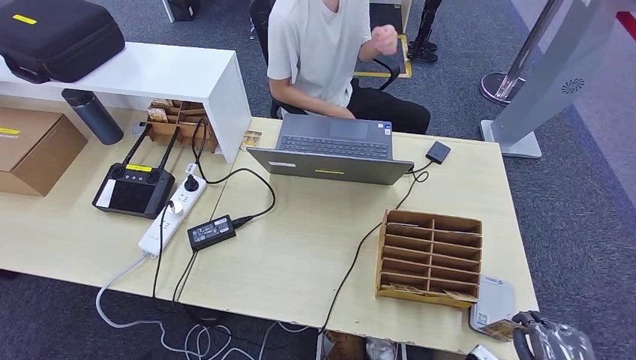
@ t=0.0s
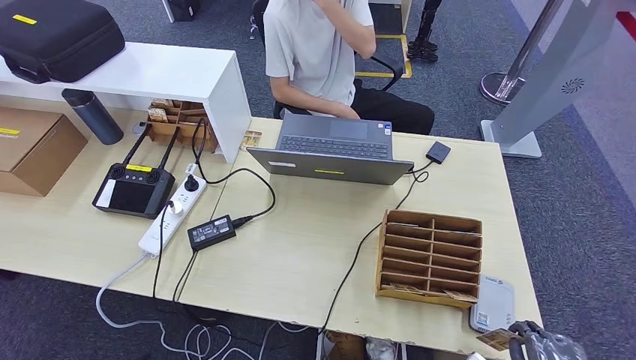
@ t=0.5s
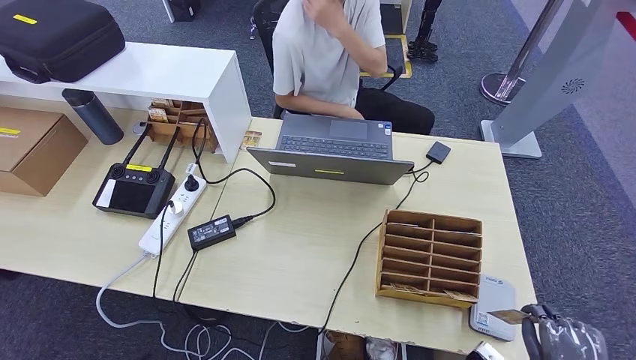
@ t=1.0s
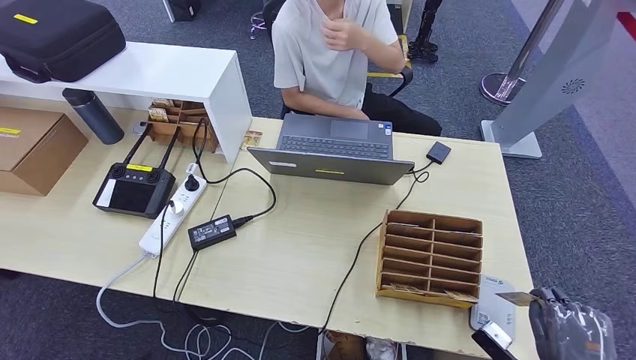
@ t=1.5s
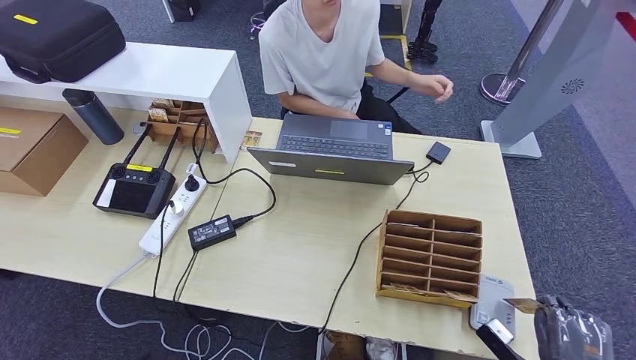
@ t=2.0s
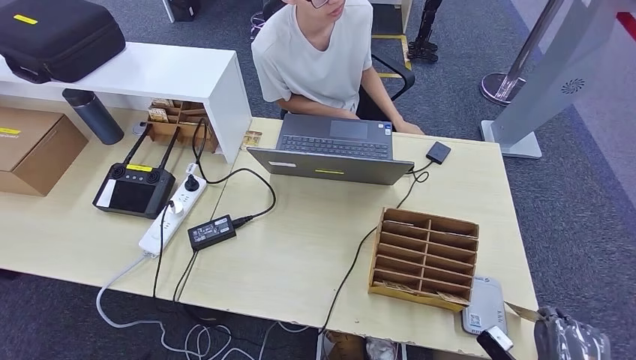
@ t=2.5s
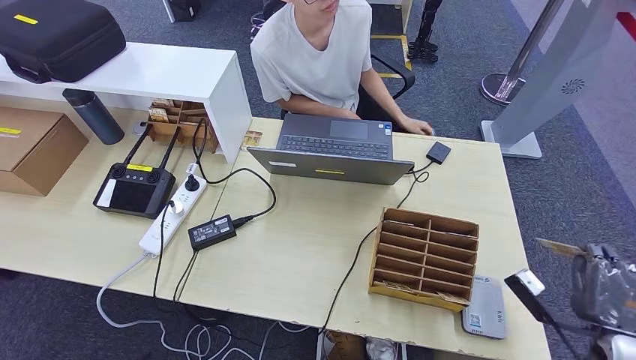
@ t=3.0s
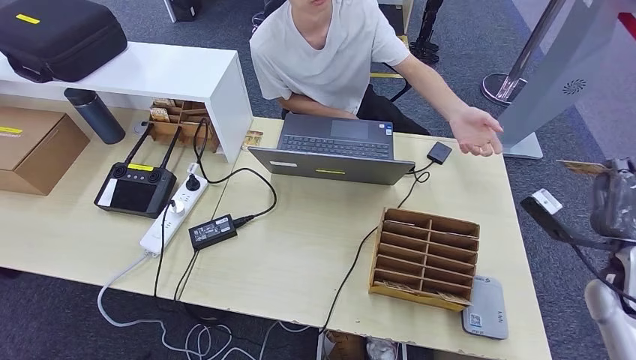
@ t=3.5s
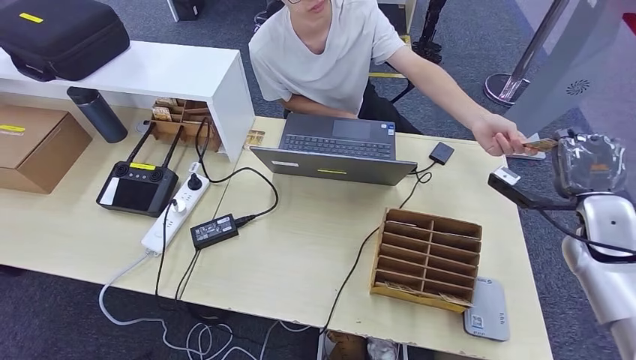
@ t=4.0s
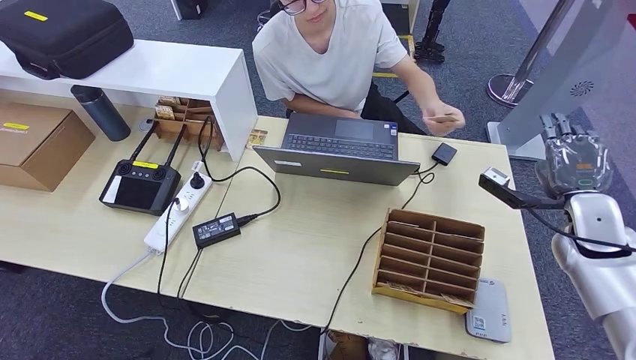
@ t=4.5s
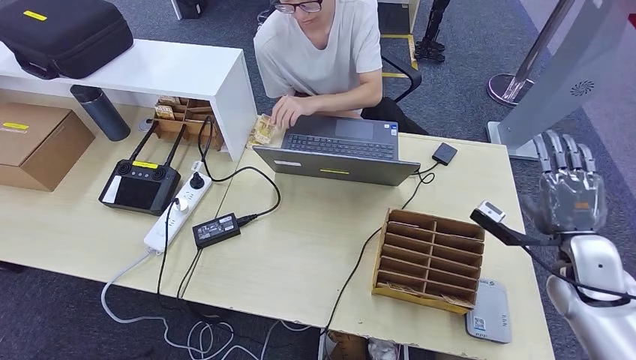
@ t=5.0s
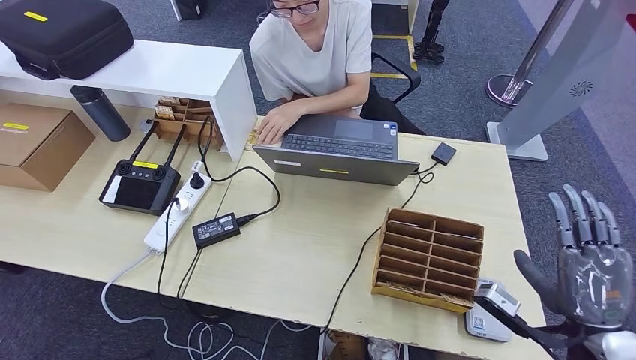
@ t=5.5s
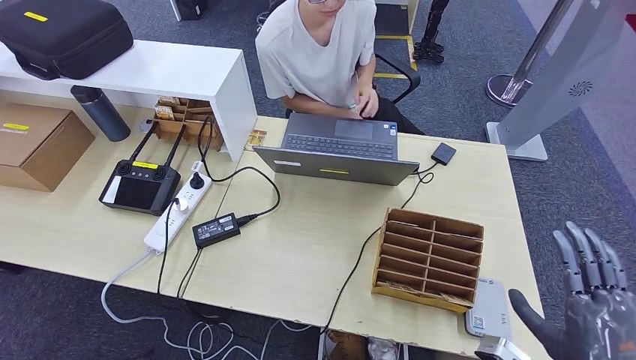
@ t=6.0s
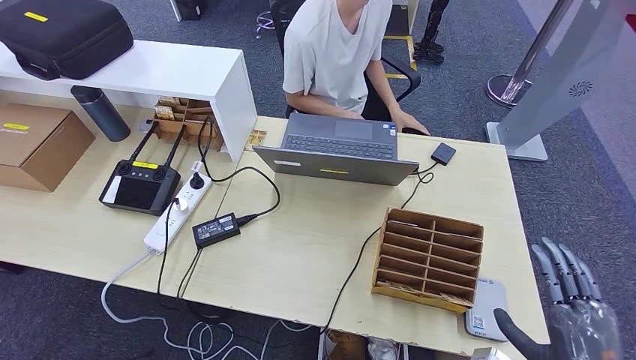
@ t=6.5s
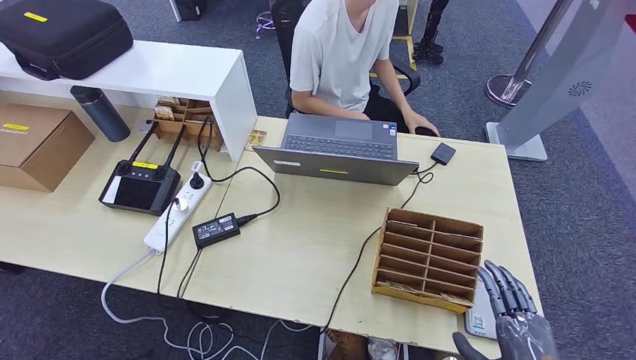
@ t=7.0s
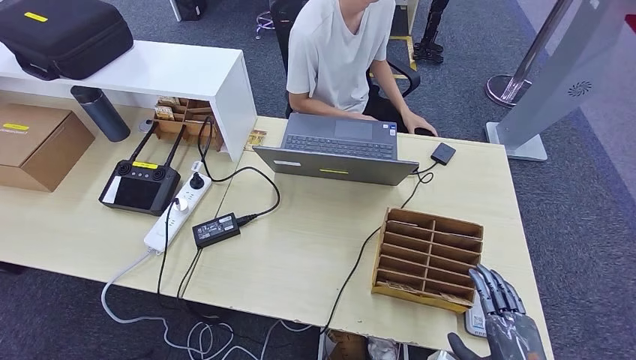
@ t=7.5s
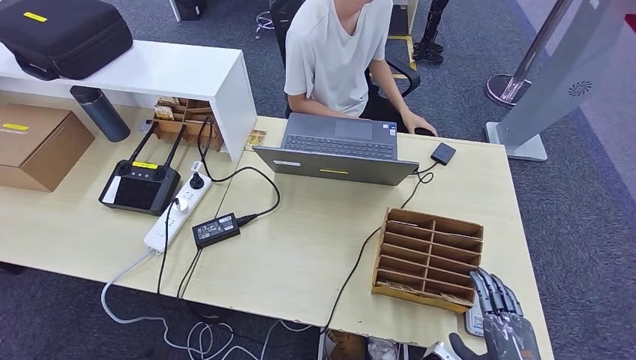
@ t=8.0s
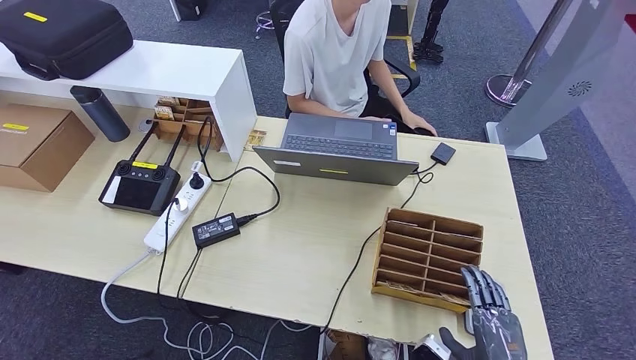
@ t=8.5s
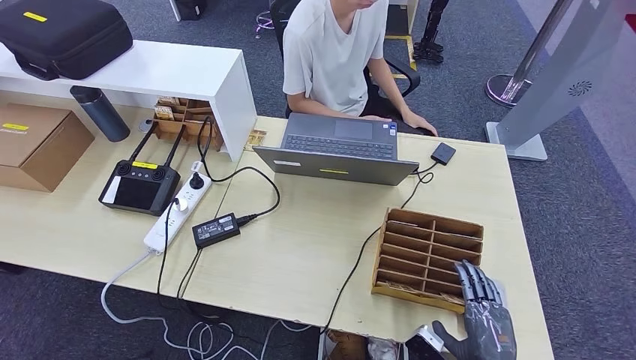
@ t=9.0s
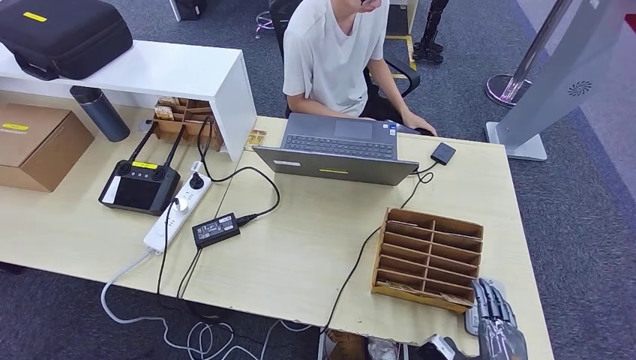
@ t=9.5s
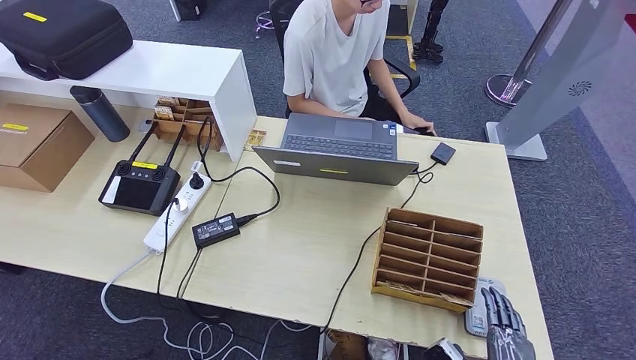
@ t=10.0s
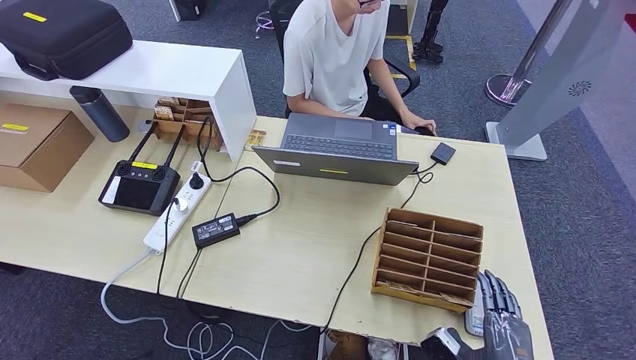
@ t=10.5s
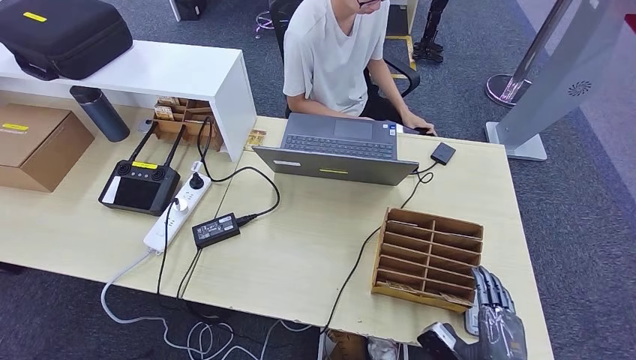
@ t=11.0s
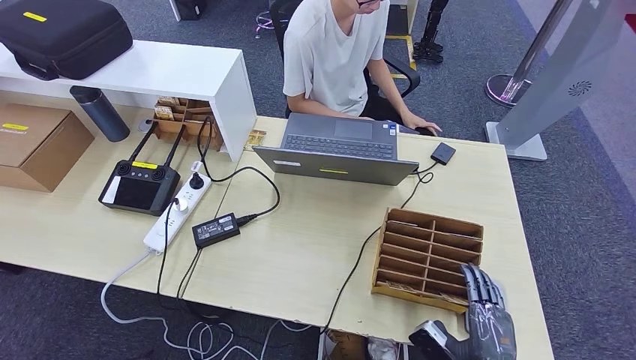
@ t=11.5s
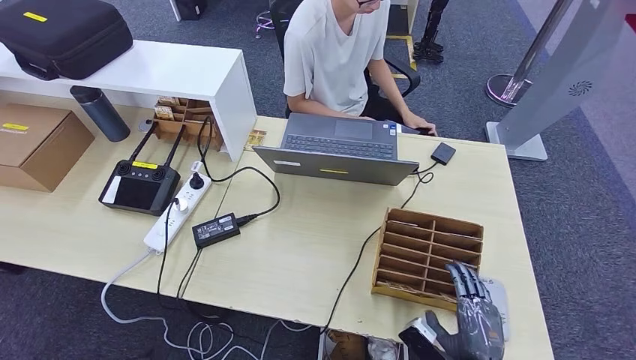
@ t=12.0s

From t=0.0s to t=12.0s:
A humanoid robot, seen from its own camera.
Step, from t=0.0s to t=2.5s: Place the ID card on the card reader.
Step, from t=3.5s to t=6.0s: Hand the ID card to the person.
From t=0.0s to t=2.0s: The right hand changes place by about 5 cm.
From t=4.0s to t=6.0s: The right hand goes some 25 cm backward.
From t=6.0s to t=8.0s: The right hand moves downward, roughly 10 cm.
From t=8.0s to t=10.0s: The hands move only a little.
From t=10.0s to t=12.0s: The right hand ends up about 5 cm from where it was.

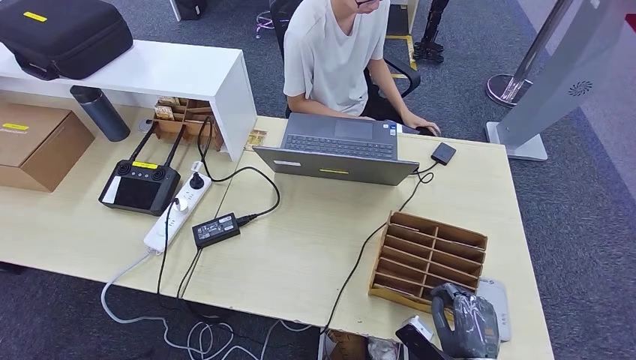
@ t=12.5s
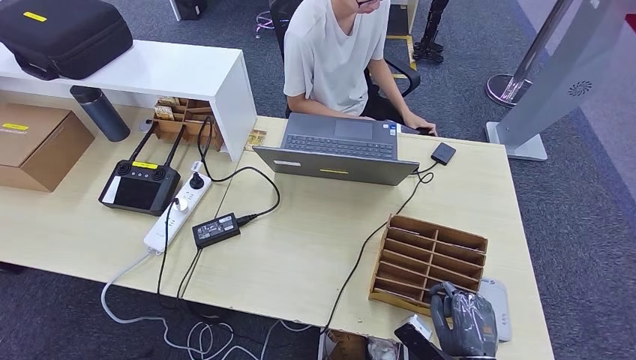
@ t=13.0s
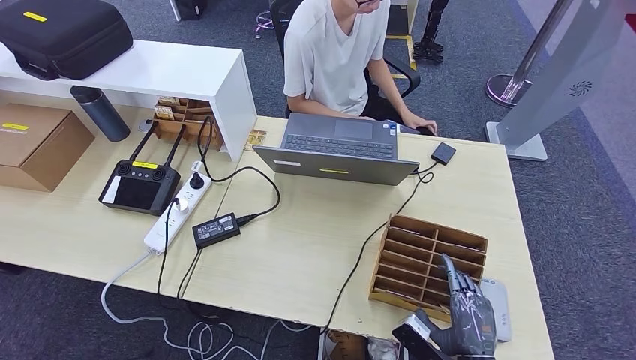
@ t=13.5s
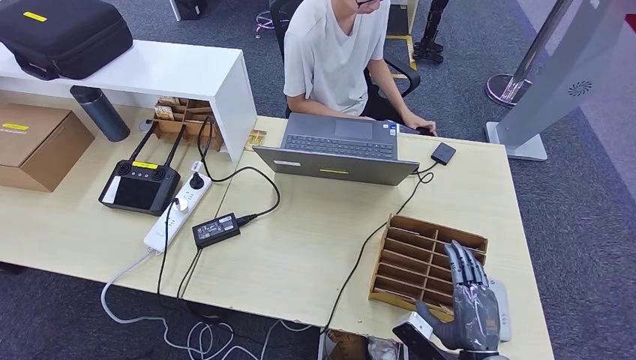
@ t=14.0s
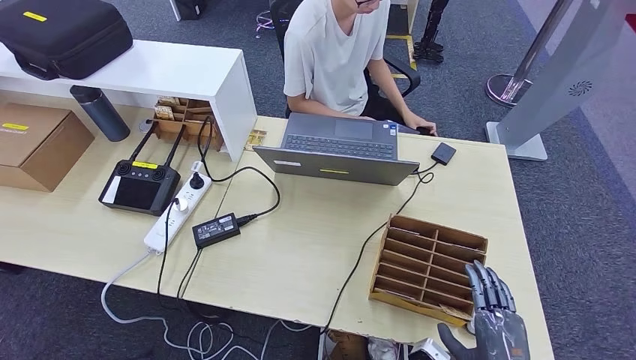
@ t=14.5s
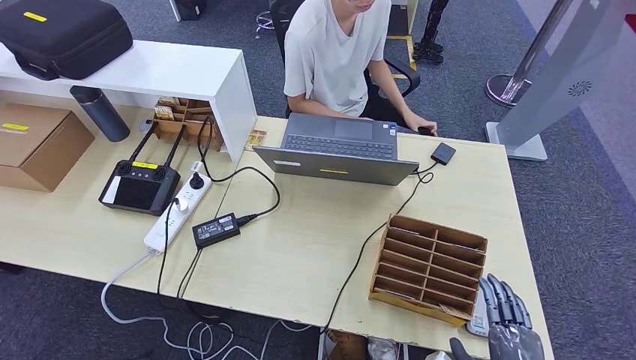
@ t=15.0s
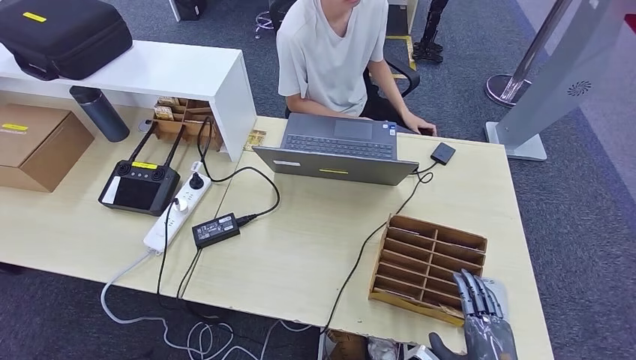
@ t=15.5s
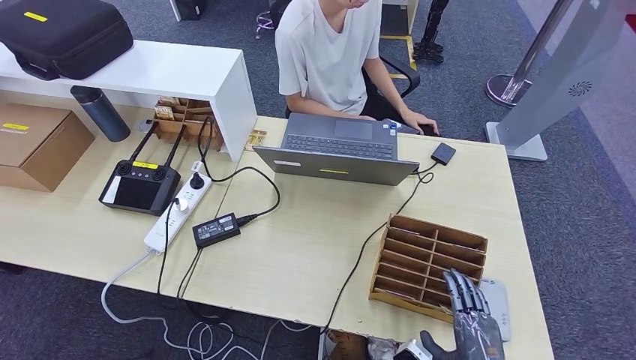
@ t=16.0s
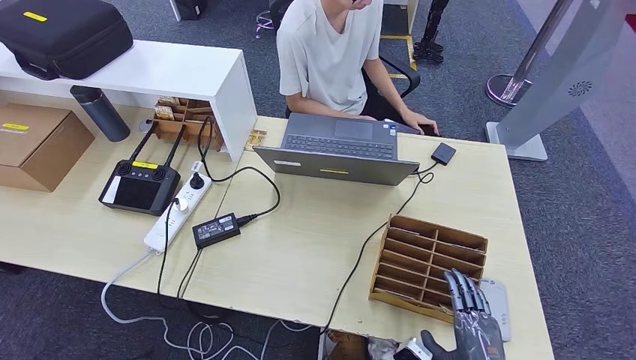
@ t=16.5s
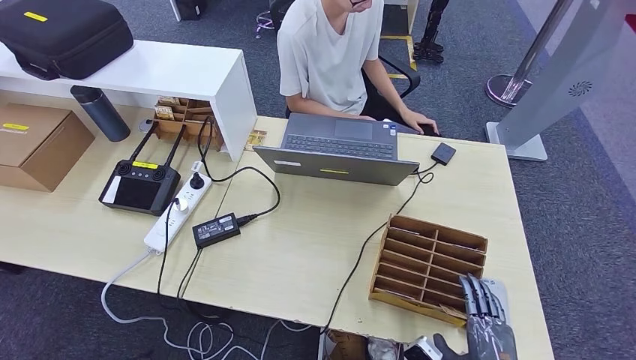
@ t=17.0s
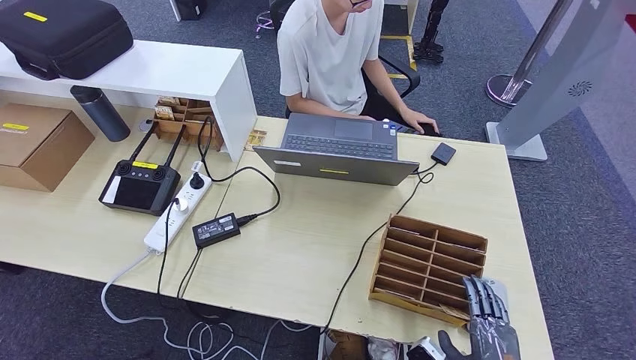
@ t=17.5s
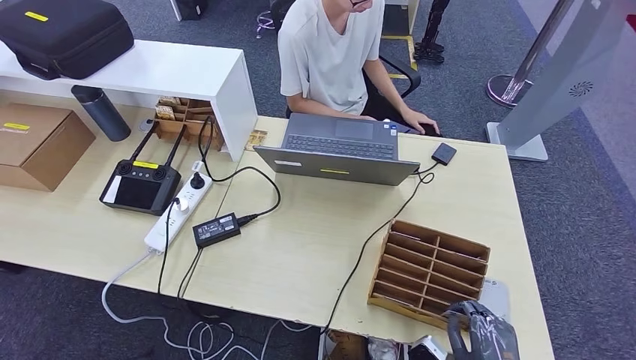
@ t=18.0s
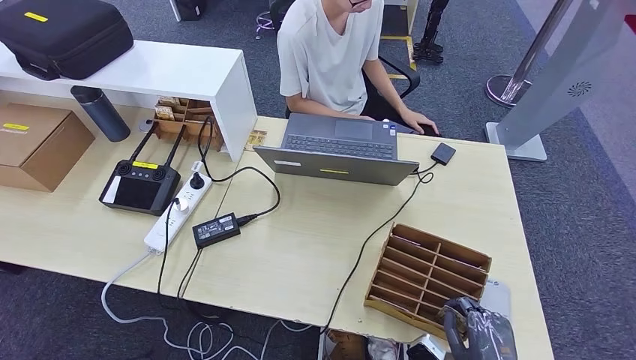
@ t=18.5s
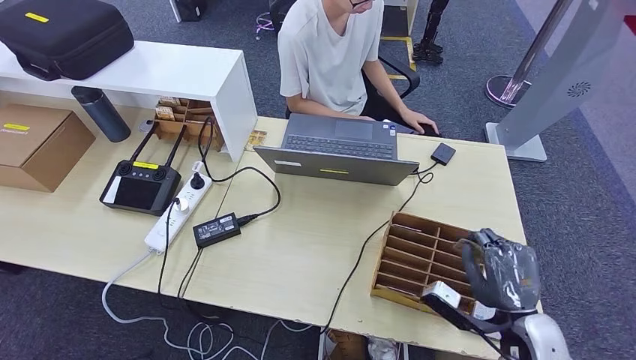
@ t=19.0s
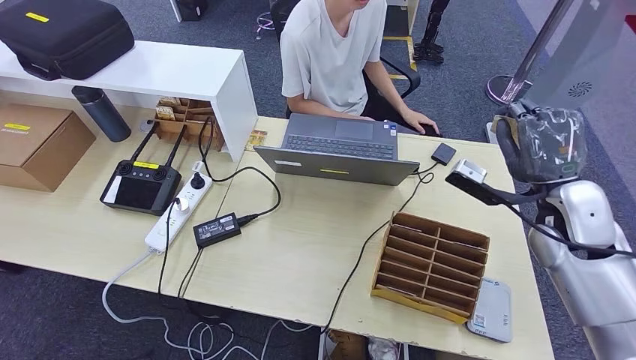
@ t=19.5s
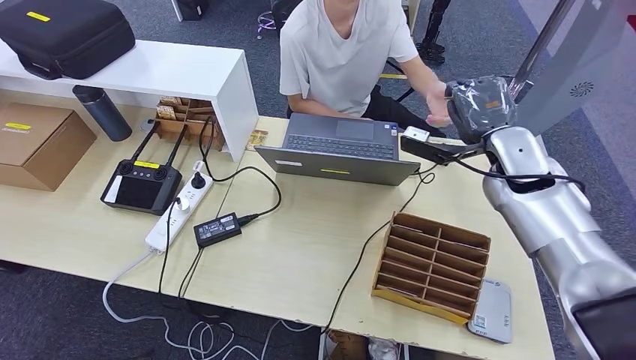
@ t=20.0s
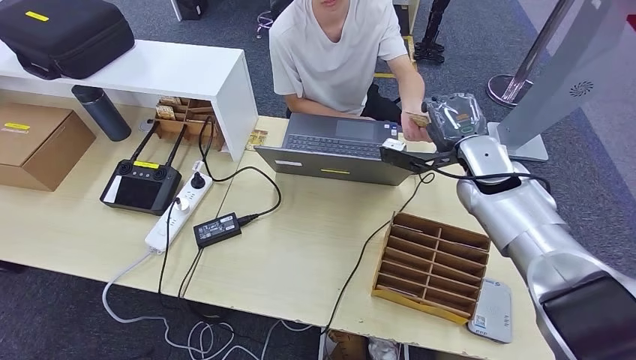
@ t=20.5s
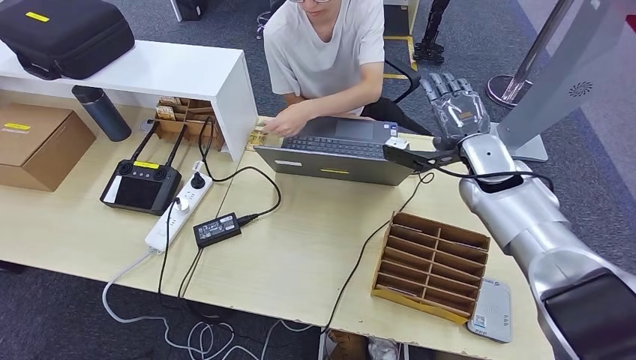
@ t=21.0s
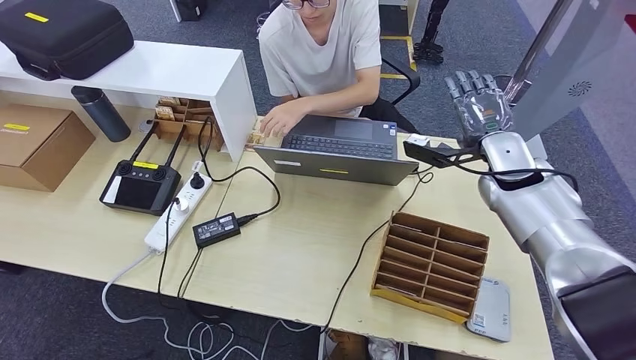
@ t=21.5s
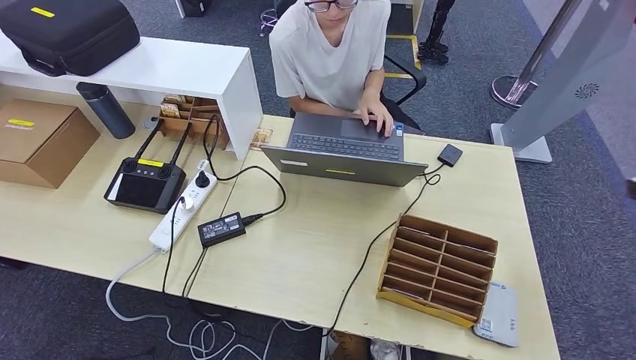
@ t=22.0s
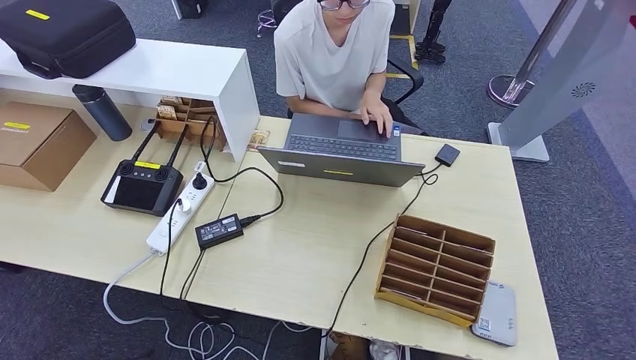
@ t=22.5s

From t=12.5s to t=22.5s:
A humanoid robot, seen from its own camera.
Step, from t=16.0s to t=19.0s: Pick up the room key from the key card box.
Step, from t=19.5s to t=22.5s: Hand the room key to the person.
From t=12.5s to t=14.5s: The hands stay close to where they were, moving slightly.
From t=14.5s to t=18.5s: The hands move only a little.
From t=18.5s to t=20.5s: The right hand shifts some 40 cm forward and upward.
From t=20.5s to t=22.5s: The right hand goes roughly 60 cm to the right and backward.
